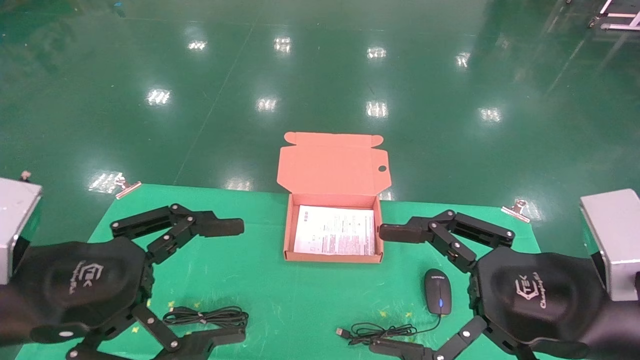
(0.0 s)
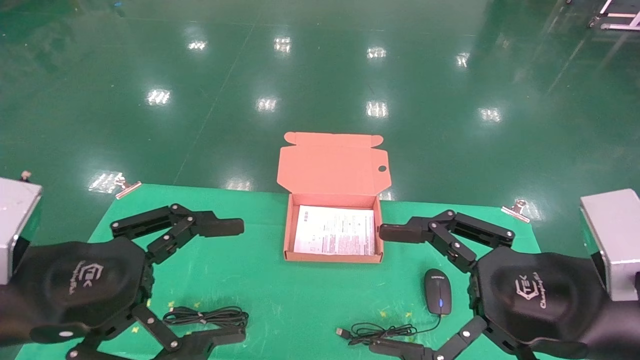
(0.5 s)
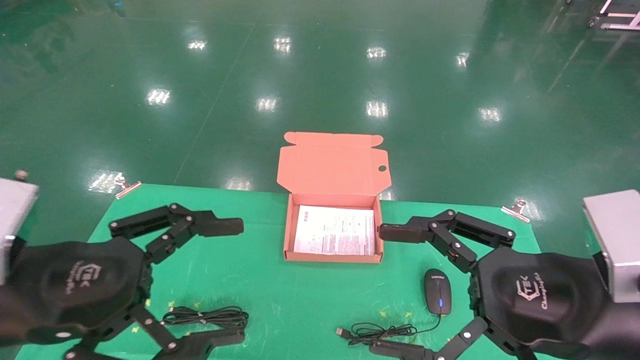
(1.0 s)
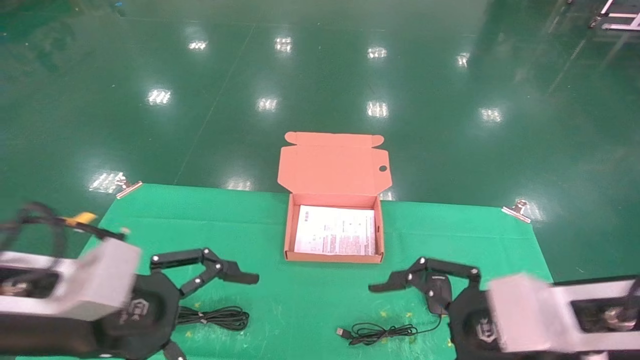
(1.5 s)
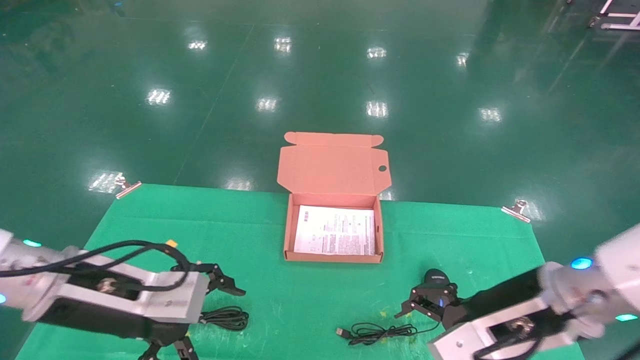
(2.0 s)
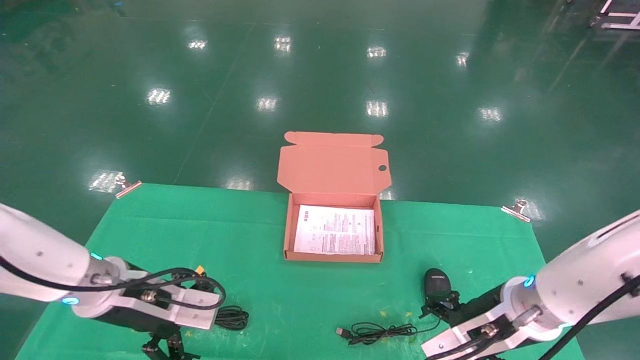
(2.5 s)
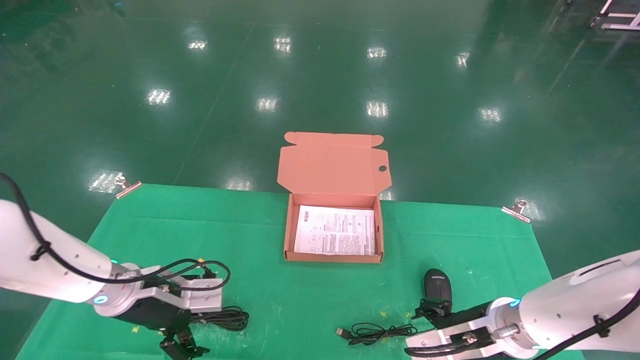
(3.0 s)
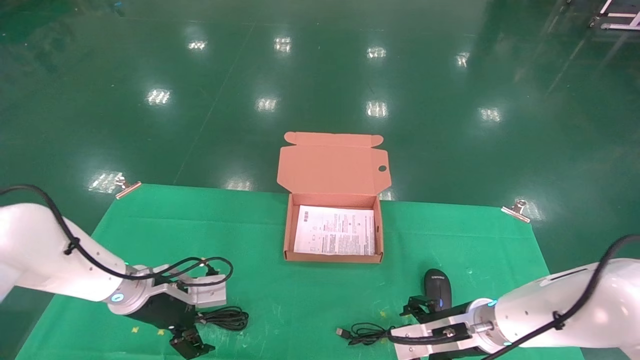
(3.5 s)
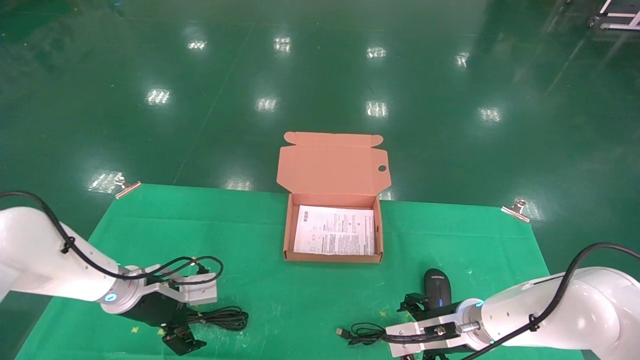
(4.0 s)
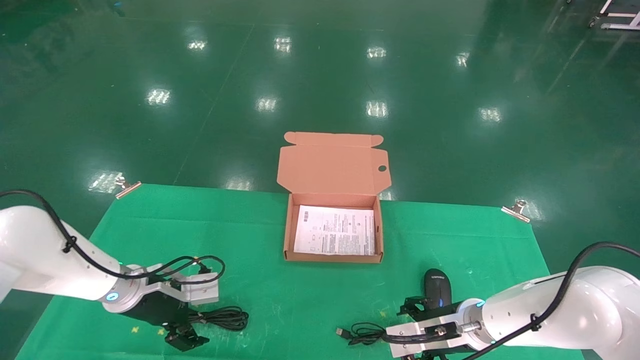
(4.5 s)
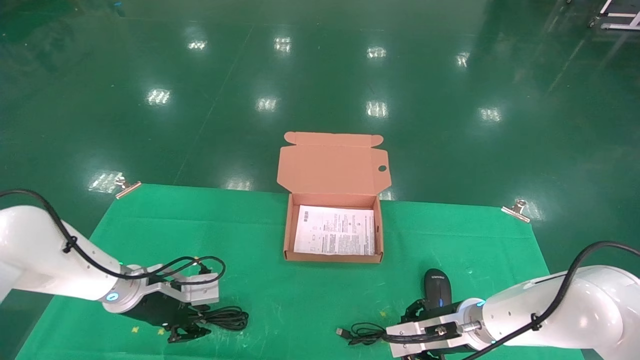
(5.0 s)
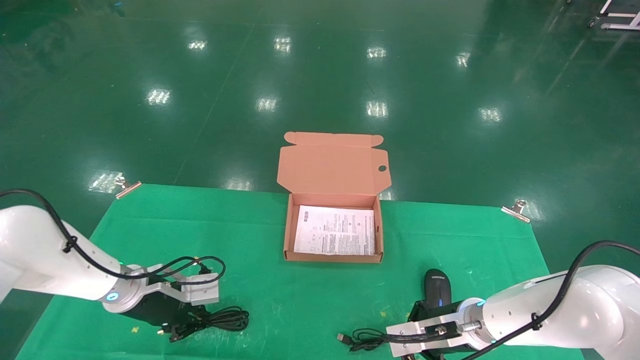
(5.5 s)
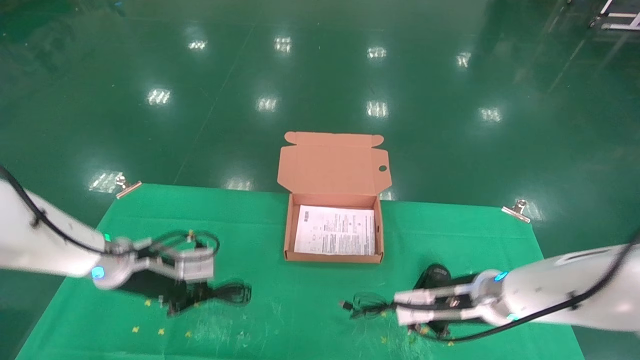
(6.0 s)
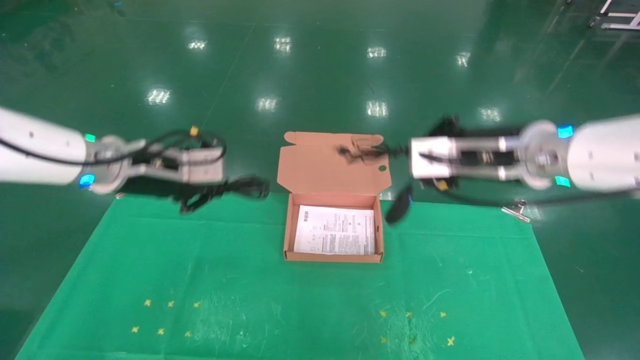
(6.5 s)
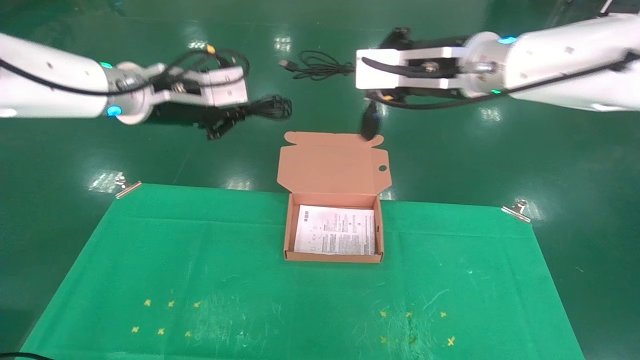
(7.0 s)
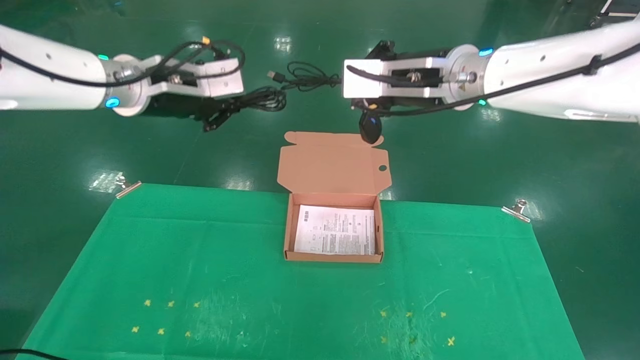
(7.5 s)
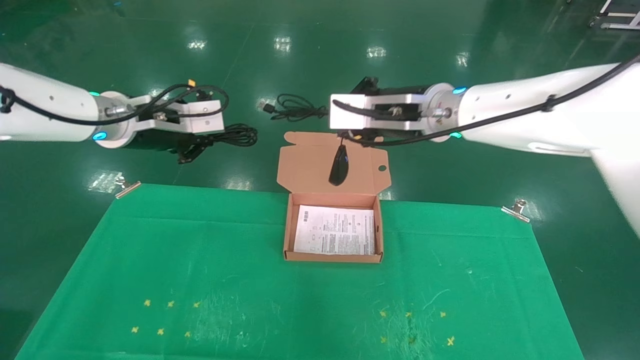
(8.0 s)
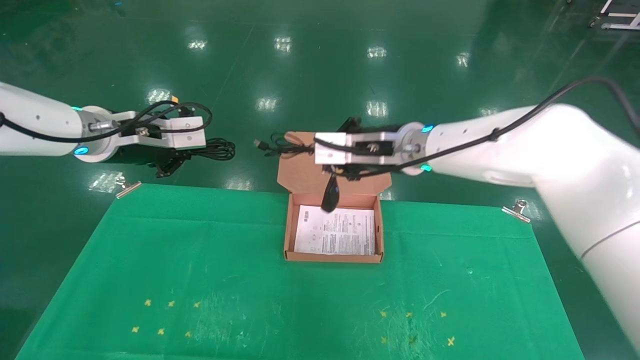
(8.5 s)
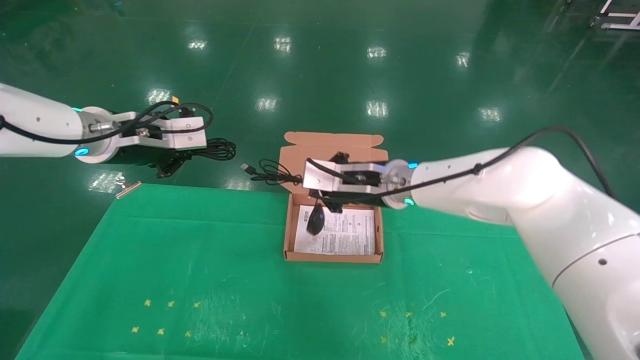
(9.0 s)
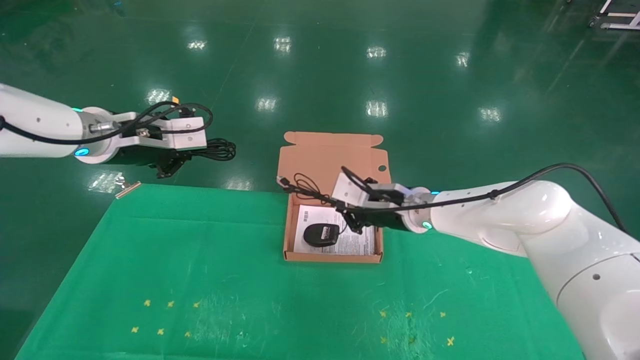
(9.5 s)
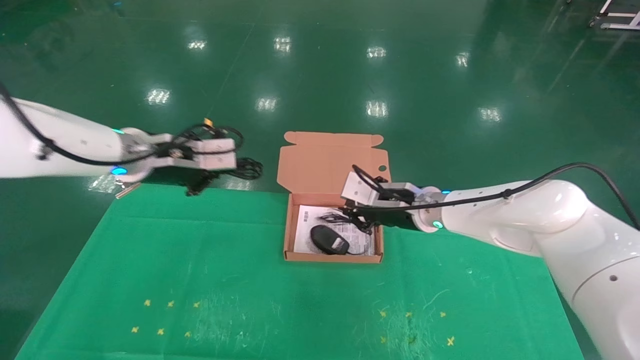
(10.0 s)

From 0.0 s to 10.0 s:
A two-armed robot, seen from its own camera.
Task of the whole recording: grasp data cable left put into box grasp mouse right put into box.
Step, from 1.5 s to 5.0 s: Grab and pick up both the mouse and power cord from the accessory packaging area at the same time.
From 0.0 s to 2.0 s: The right gripper is displaced forward and downward by some 10 cm; the left gripper heads forward, covering some 10 cm.
From 2.0 s to 4.0 s: The left gripper moves forward and downward, about 20 cm. Meanwhile the right gripper travels downward and forward by approximately 20 cm.
From 4.0 s to 6.0 s: The grippers both shift upward by about 5 cm. The left gripper closes up. Meanwhile the right gripper closes.
From 6.0 s to 8.0 s: The left gripper shifts approximately 20 cm upward. Meanwhile the right gripper is displaced upward and to the left by roughly 25 cm.
From 8.0 s to 10.0 s: The right gripper heads downward, covering some 15 cm; the left gripper changes place by approximately 5 cm.

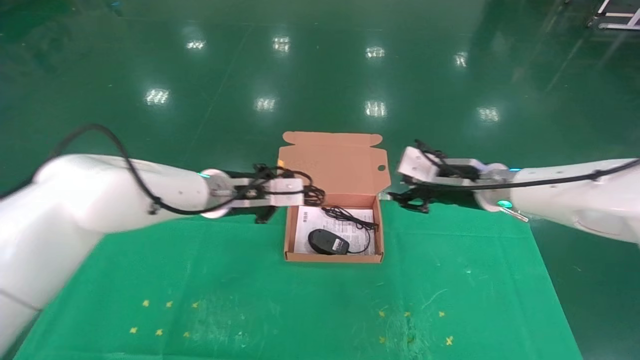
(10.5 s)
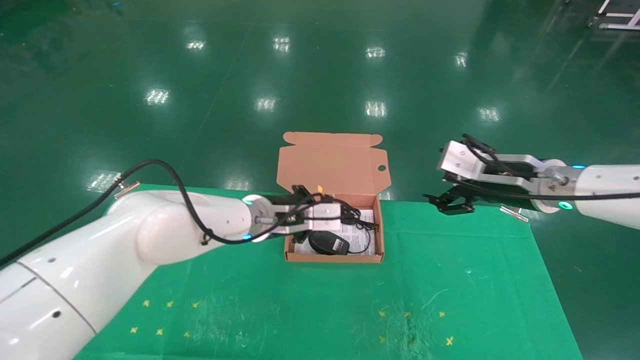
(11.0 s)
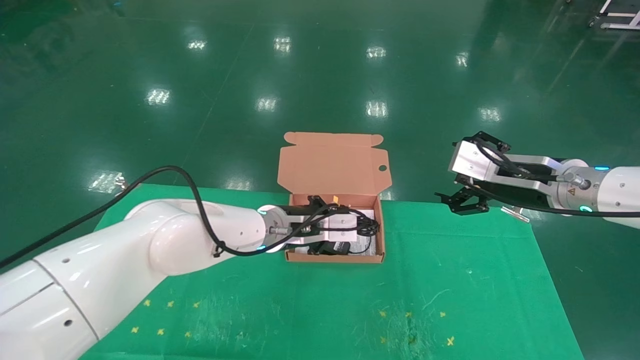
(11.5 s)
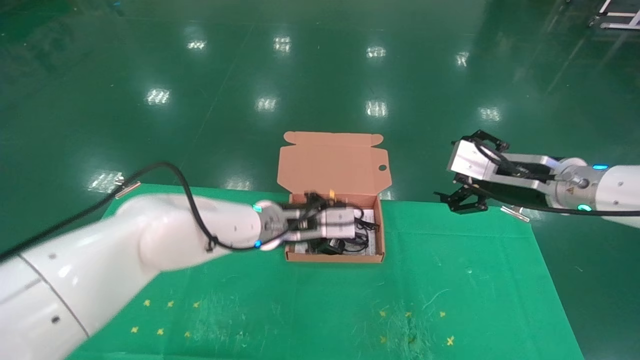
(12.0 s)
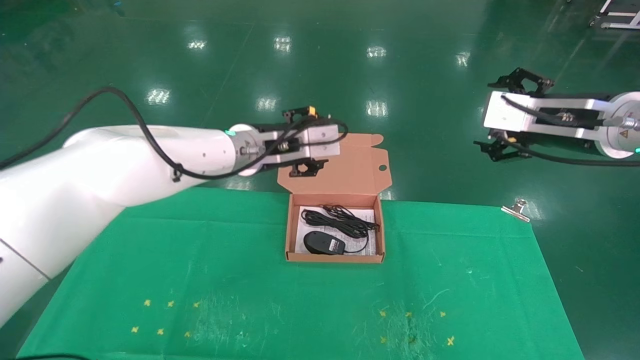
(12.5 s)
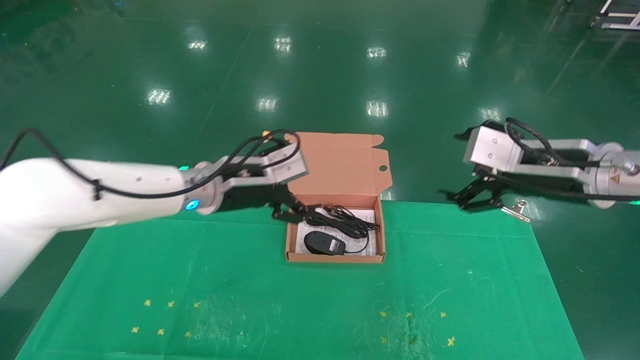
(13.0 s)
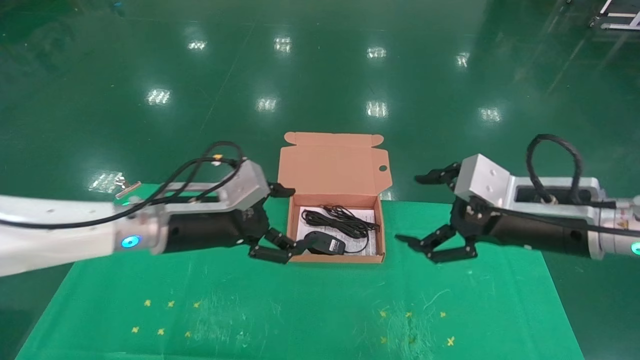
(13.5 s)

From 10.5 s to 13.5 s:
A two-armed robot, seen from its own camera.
Task of the whole recording: grasp data cable left put into box grasp mouse right put into box.
From 10.5 s to 12.0 s: The right gripper goes roughly 10 cm backward, to the right and upward, and opens. Meanwhile the left gripper travels to the right by roughly 5 cm.
From 12.0 s to 13.5 s: The left gripper goes some 15 cm to the left and backward, and opens up. The right gripper is displaced backward by approximately 5 cm.
